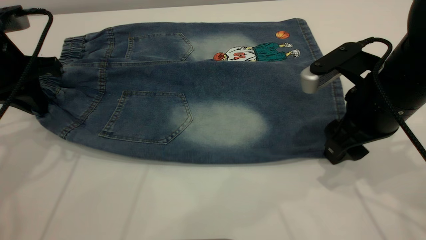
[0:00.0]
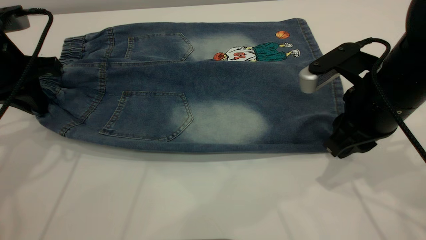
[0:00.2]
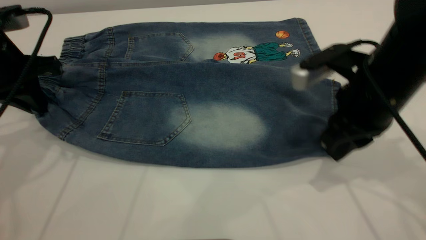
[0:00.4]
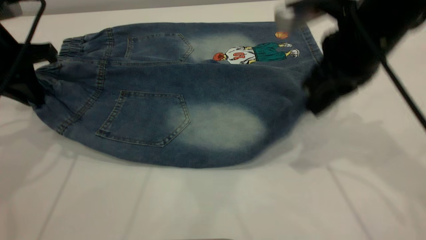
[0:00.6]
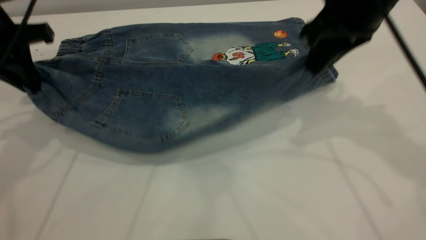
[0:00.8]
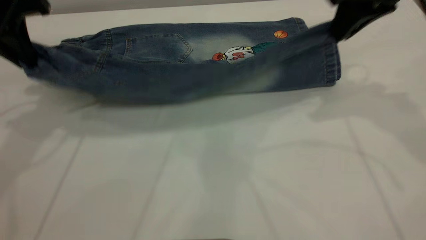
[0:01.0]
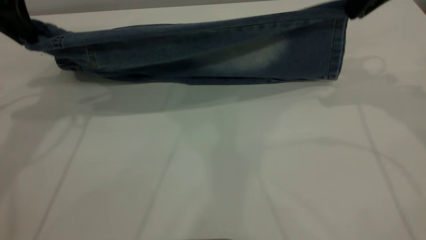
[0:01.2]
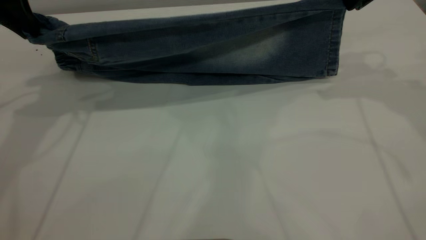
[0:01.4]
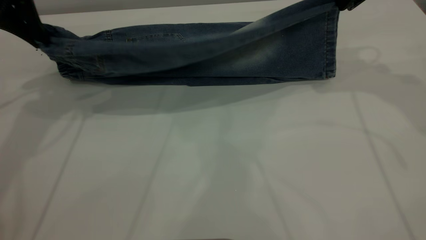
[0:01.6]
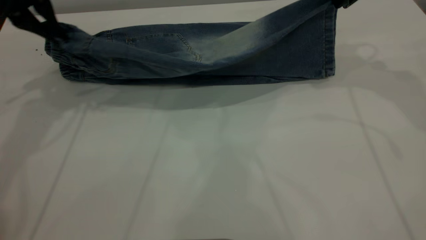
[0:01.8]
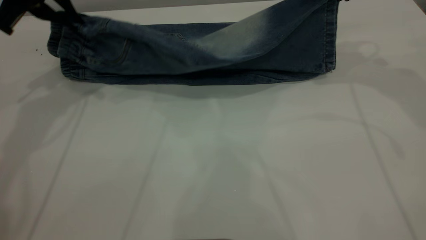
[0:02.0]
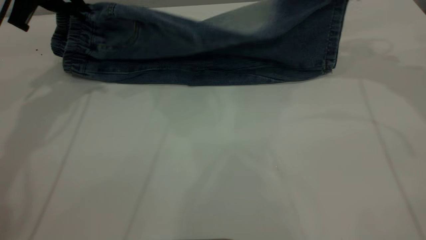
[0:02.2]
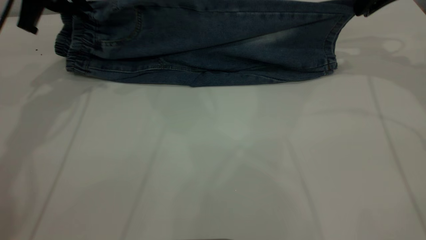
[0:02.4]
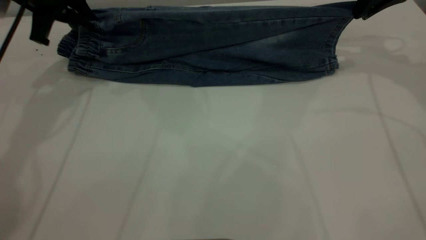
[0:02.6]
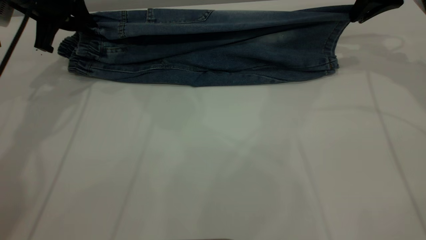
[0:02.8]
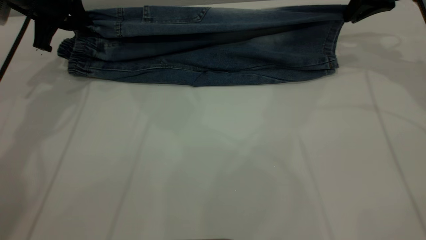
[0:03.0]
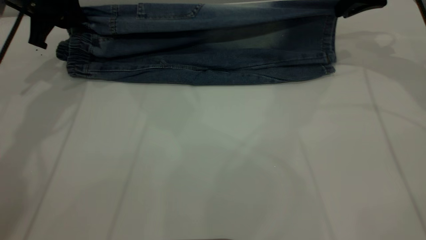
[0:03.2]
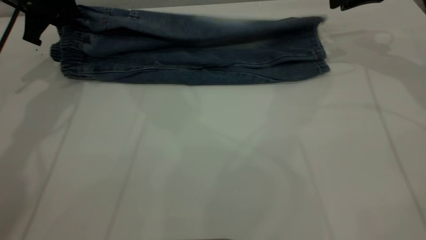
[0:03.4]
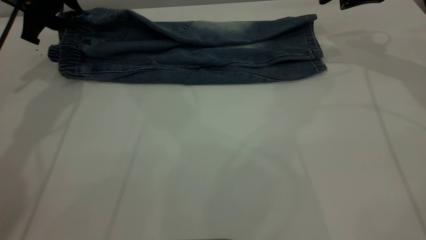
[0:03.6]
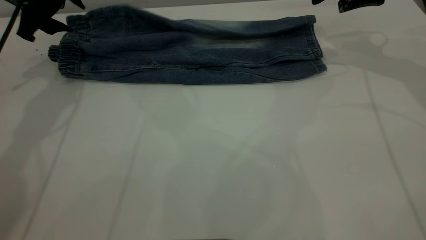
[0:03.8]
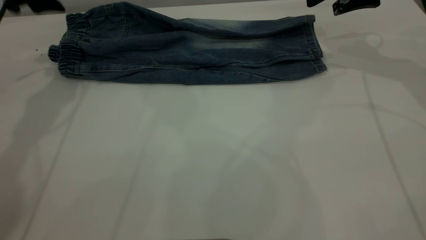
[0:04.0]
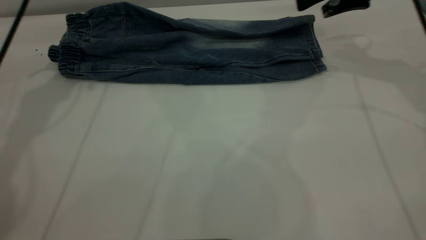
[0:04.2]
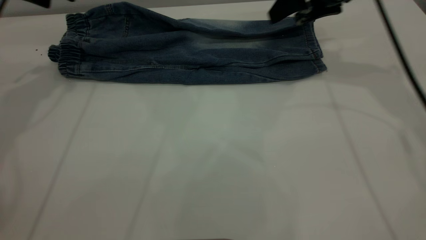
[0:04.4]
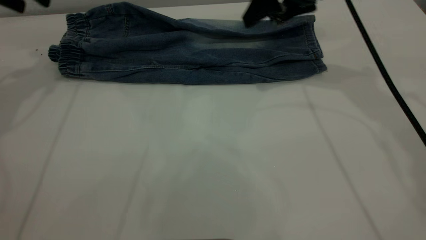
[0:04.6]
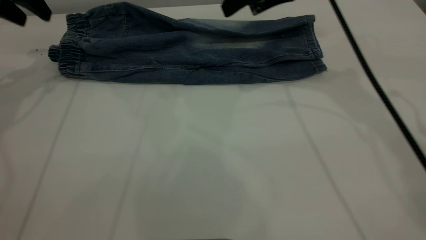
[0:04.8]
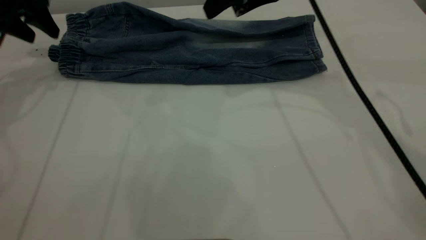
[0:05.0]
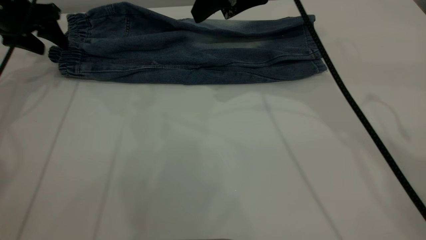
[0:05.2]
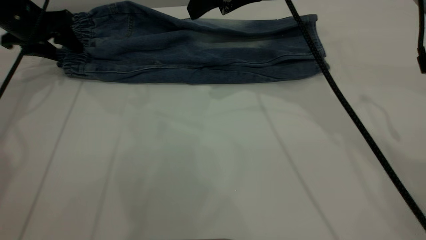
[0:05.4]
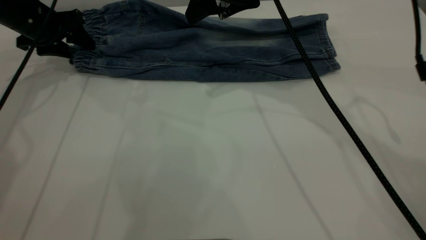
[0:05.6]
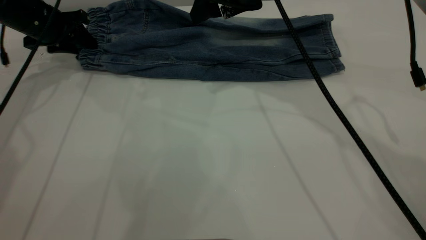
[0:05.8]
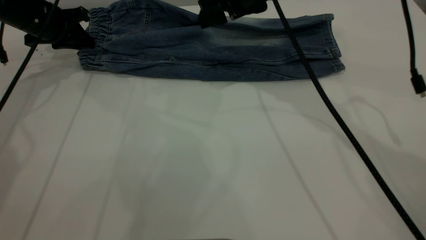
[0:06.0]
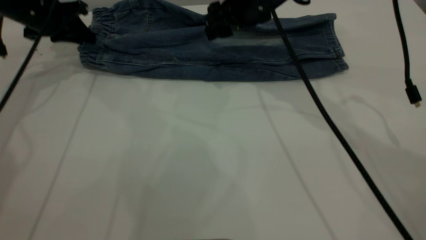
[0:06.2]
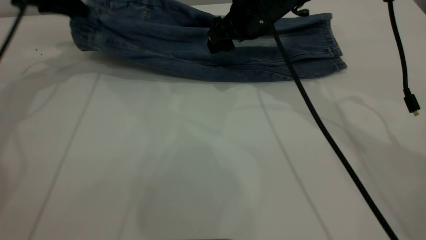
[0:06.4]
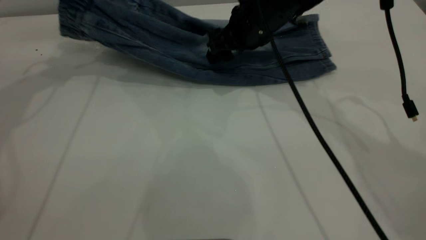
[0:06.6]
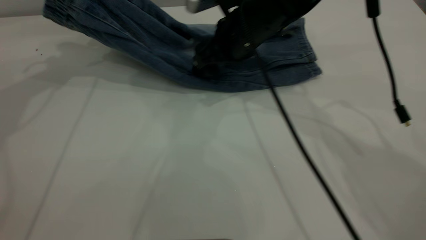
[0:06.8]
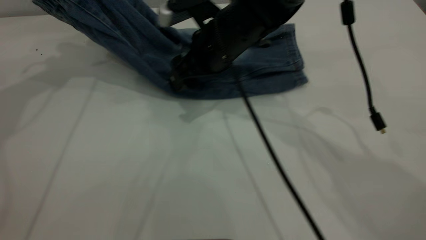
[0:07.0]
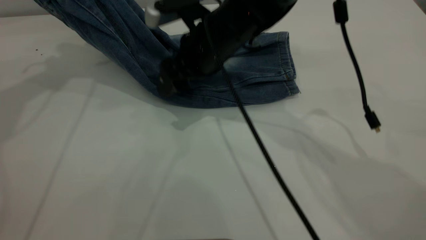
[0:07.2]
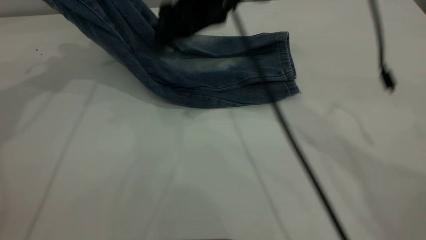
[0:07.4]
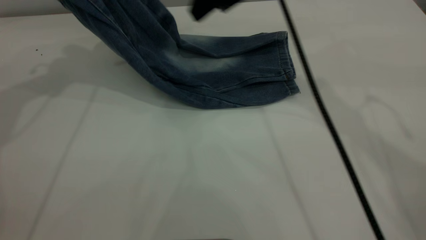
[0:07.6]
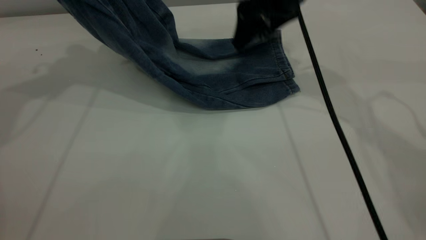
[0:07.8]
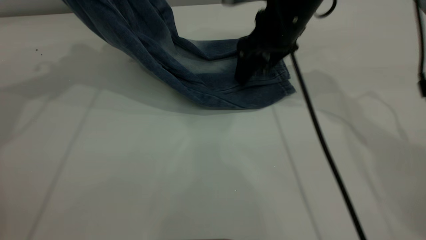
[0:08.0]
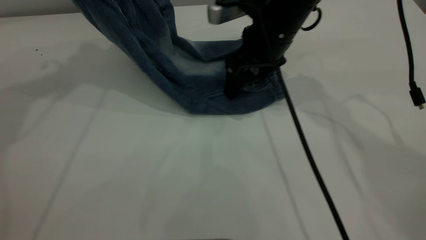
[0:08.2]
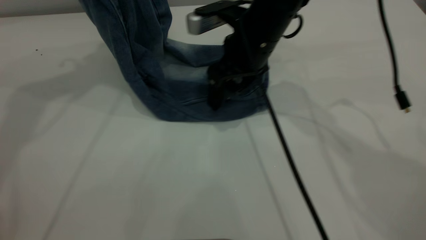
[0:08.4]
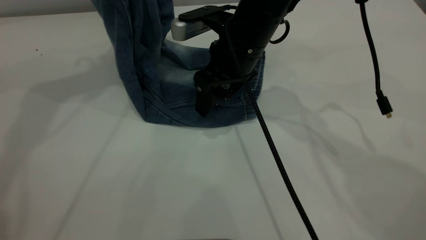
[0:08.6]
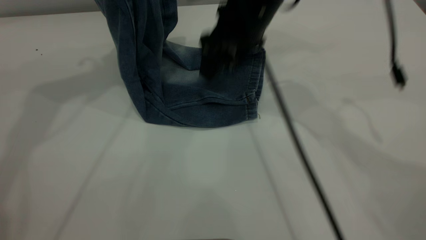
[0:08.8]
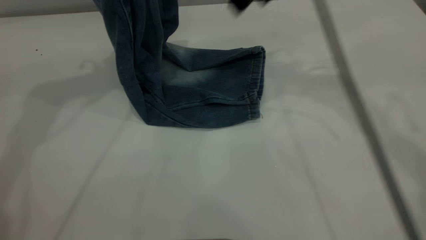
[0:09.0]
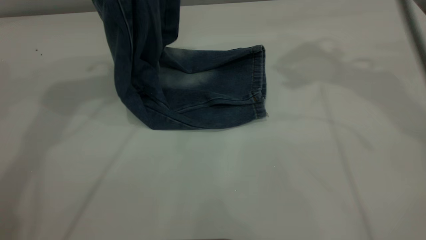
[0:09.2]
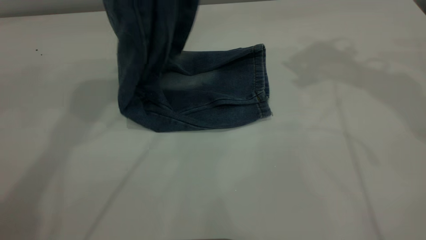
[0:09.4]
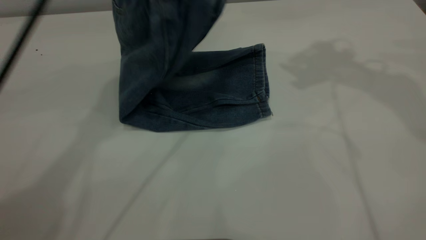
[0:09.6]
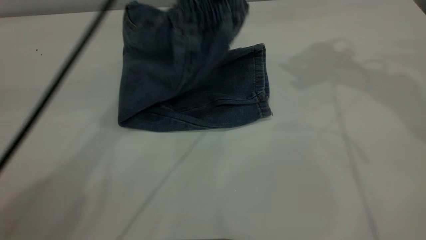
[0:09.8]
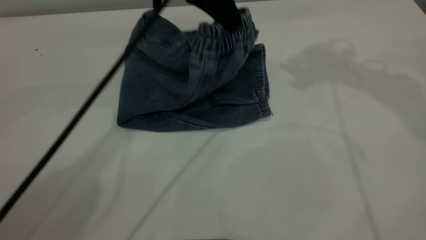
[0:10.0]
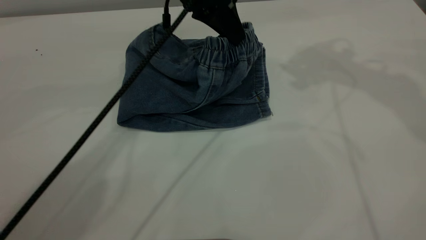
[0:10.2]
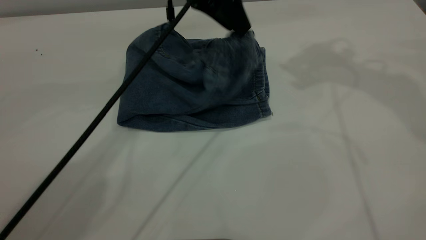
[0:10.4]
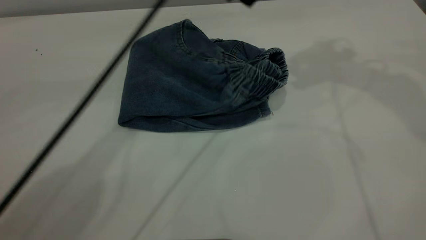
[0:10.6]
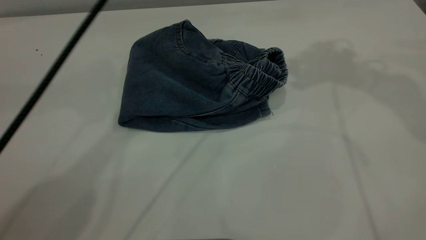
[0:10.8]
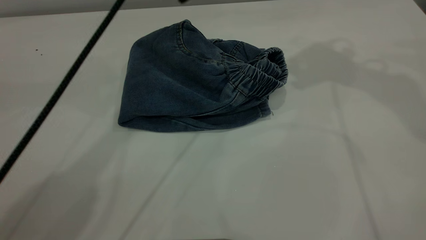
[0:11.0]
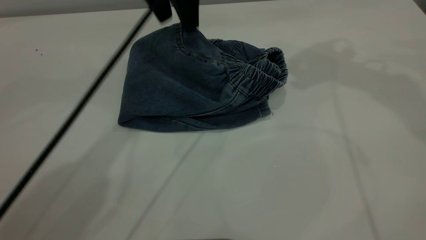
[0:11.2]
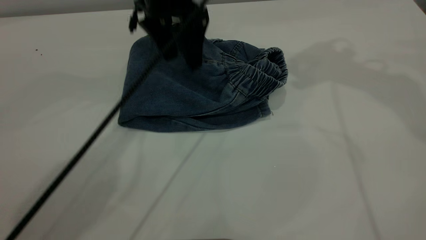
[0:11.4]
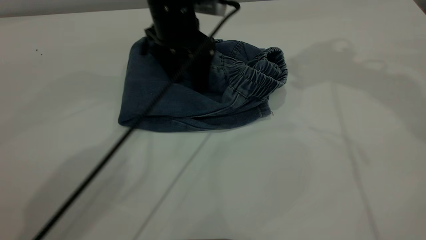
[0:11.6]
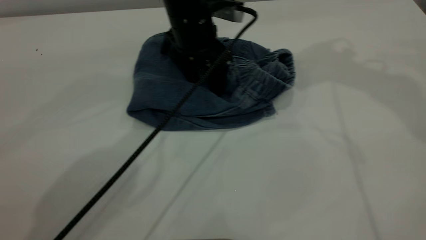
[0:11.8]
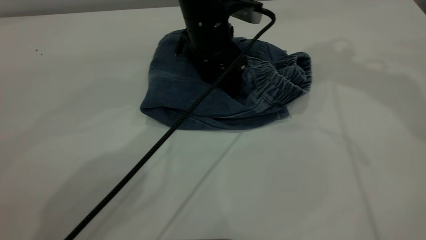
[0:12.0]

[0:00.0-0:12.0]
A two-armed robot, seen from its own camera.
Step, 0:00.0 to 0:04.0: Fold the bottom of the pants upward.
Step, 0:04.2 to 0:10.8: Fold the pants from left to right.
0:00.0 to 0:01.6: The right gripper shifts some 20 cm forward and upward, and closes up. The left gripper travels upward and forward by approximately 10 cm.
0:01.6 to 0:03.0: The right gripper shifts roughly 5 cm downward. The left gripper is displaced downward and forward by about 10 cm.
0:03.0 to 0:04.4: The right gripper travels to the left by approximately 10 cm, and opens. The left gripper goes about 5 cm upward, and opens.
0:04.4 to 0:06.0: The right gripper moves to the left, about 10 cm. The left gripper travels downward by about 10 cm, and closes its fingers.
0:06.0 to 0:07.6: The left gripper moves upward, roughly 20 cm.
0:07.6 to 0:09.0: The right gripper moves upward, about 5 cm. The left gripper moves to the right, about 10 cm.
0:09.0 to 0:10.4: The right gripper is displaced upward and to the right by some 10 cm; the left gripper goes approximately 20 cm to the right and downward, and opens up.
0:10.4 to 0:12.0: The left gripper goes some 10 cm downward.

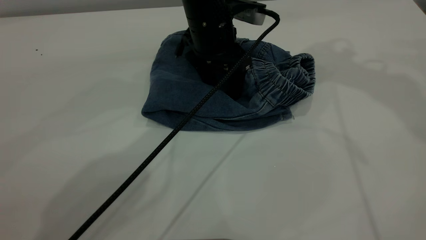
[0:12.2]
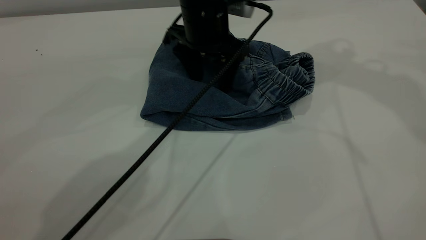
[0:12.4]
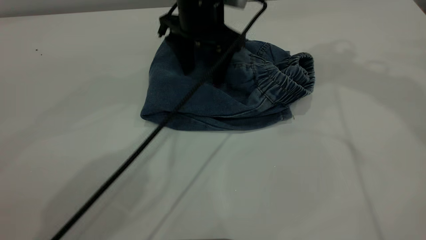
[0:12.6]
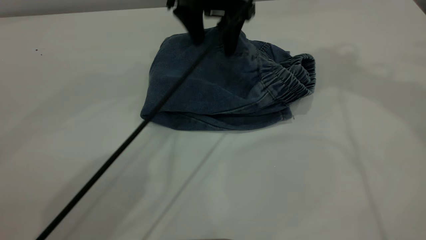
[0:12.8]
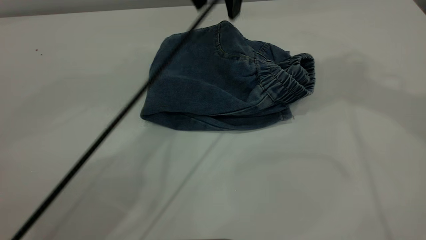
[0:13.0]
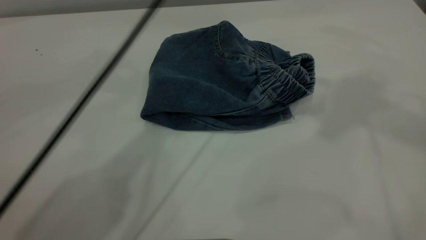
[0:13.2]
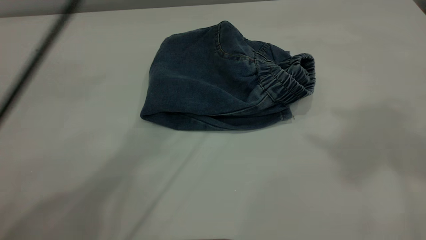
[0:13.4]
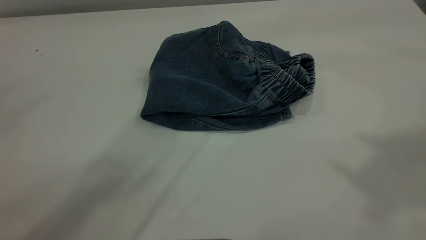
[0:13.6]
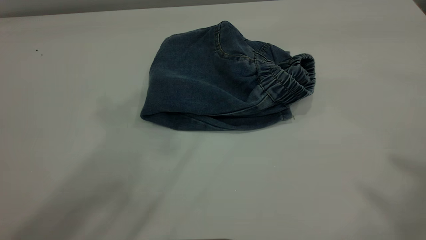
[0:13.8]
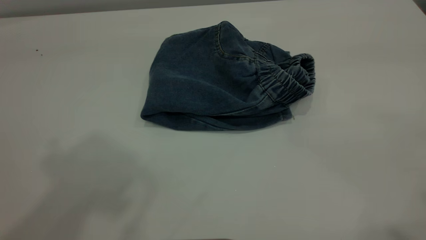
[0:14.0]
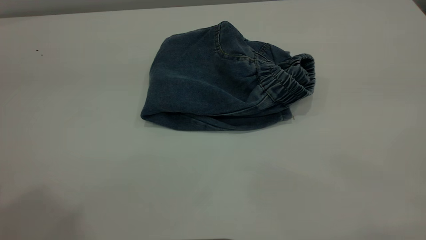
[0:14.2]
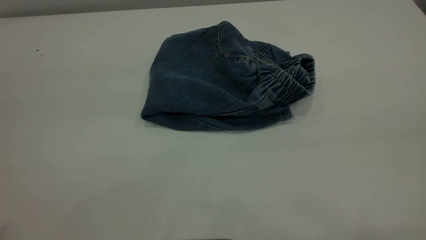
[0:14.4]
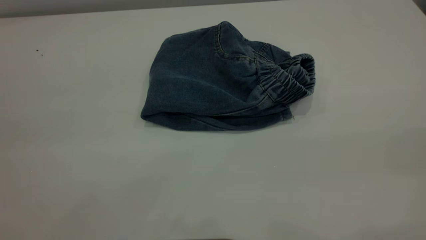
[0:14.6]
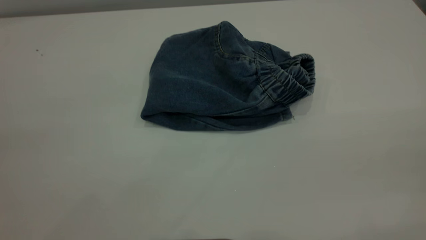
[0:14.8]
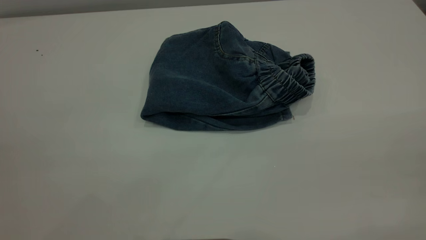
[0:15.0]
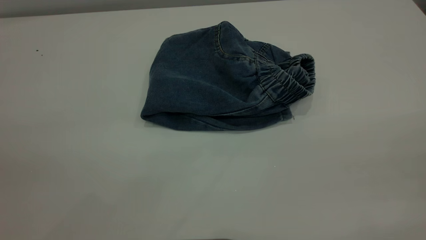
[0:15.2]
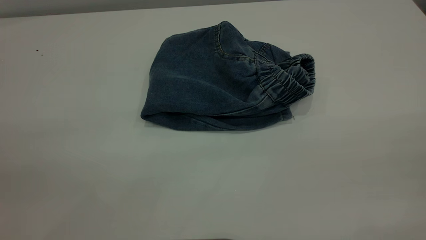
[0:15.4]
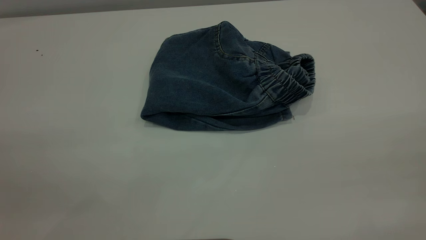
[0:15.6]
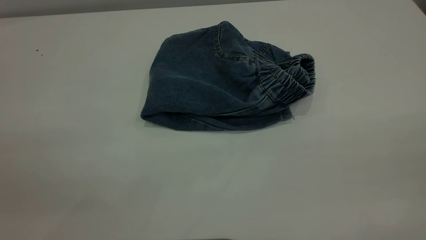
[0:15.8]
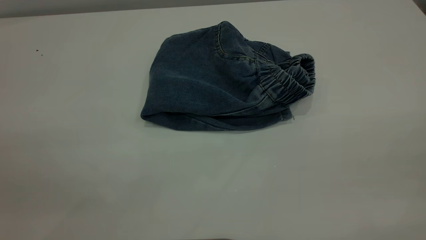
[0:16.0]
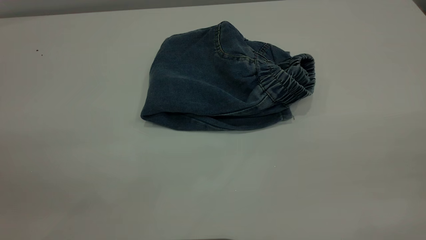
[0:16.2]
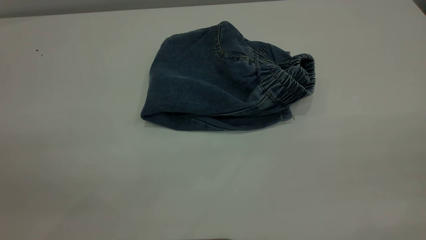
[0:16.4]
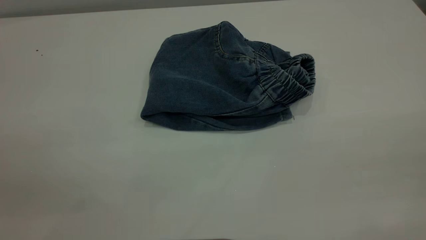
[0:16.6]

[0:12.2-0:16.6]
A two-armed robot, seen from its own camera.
0:12.2 to 0:13.6: The left gripper travels upward by approximately 35 cm. The right gripper is displaced backward and upward by roughly 30 cm.
